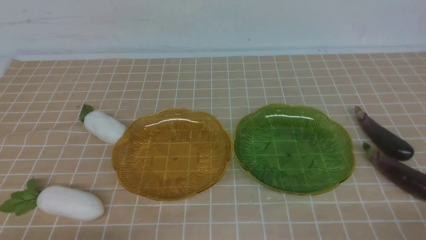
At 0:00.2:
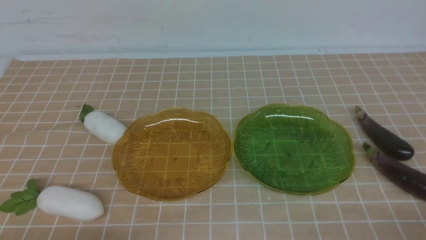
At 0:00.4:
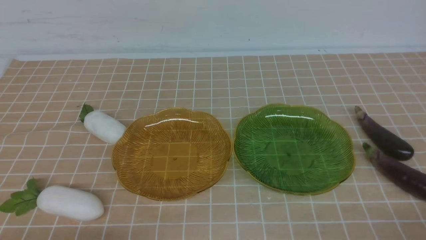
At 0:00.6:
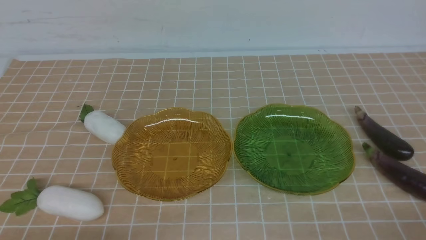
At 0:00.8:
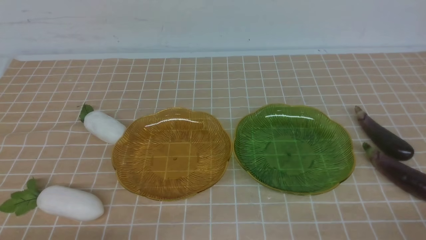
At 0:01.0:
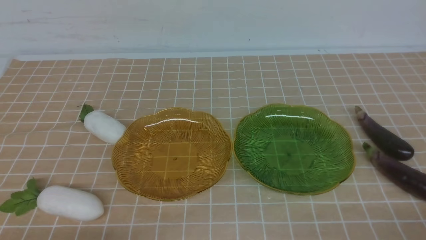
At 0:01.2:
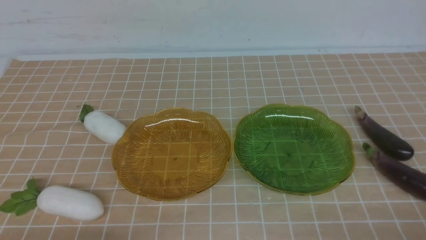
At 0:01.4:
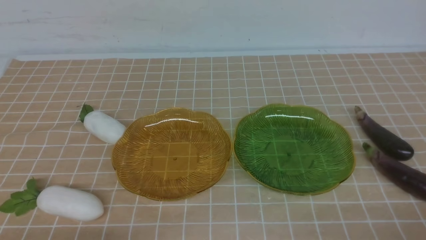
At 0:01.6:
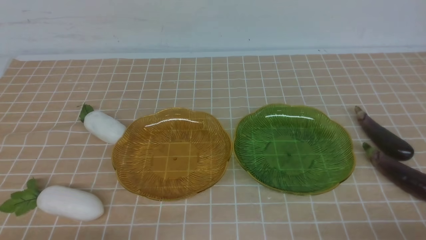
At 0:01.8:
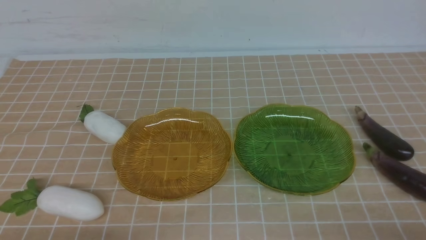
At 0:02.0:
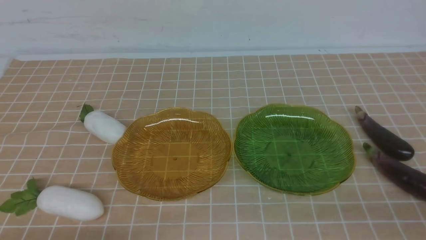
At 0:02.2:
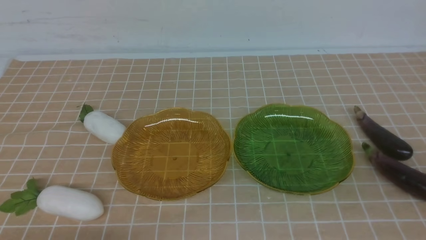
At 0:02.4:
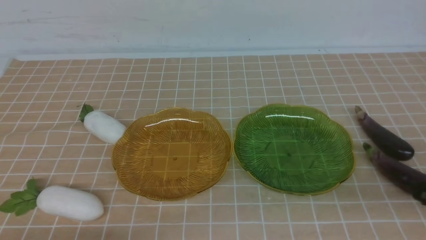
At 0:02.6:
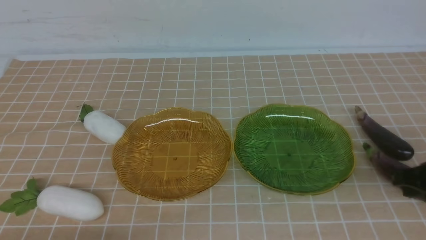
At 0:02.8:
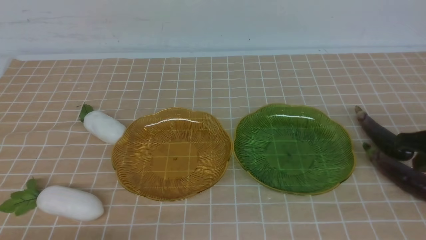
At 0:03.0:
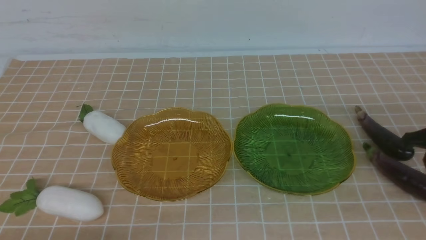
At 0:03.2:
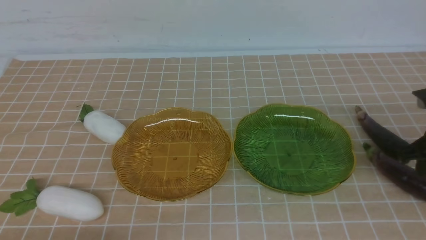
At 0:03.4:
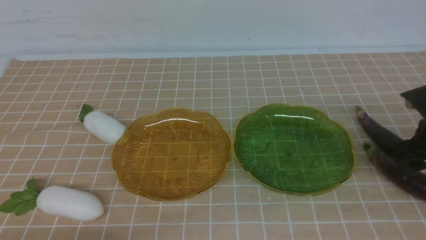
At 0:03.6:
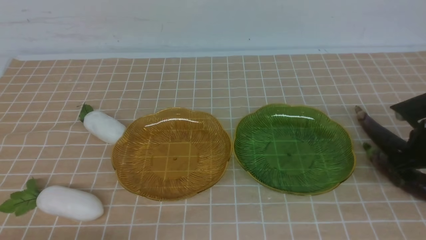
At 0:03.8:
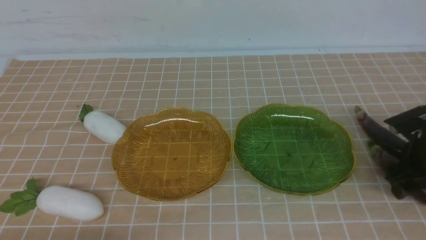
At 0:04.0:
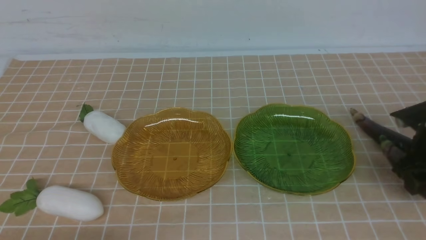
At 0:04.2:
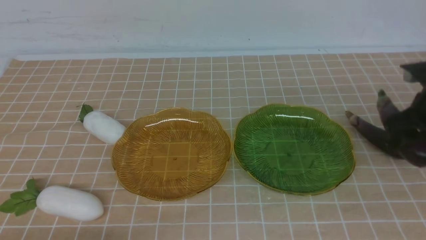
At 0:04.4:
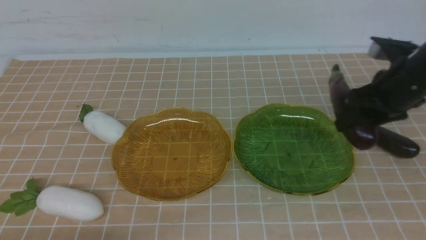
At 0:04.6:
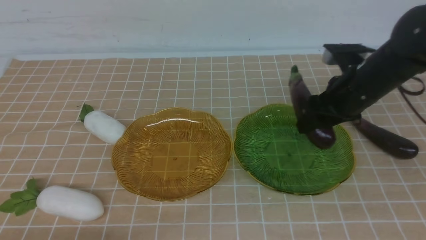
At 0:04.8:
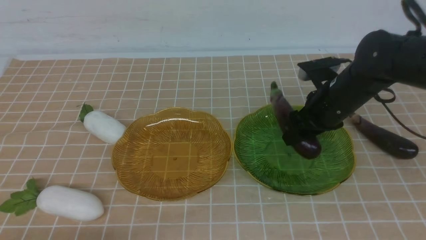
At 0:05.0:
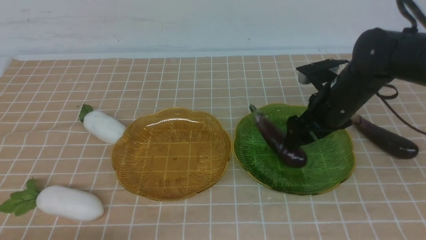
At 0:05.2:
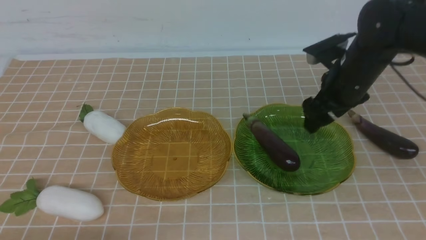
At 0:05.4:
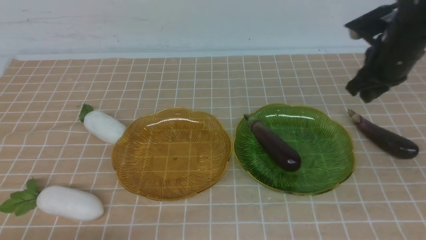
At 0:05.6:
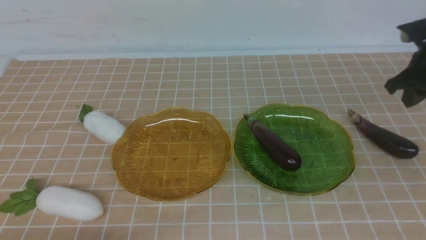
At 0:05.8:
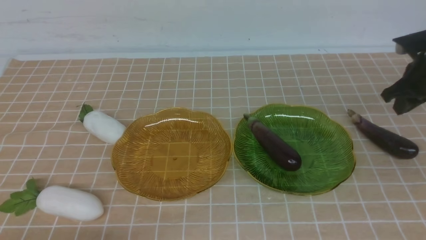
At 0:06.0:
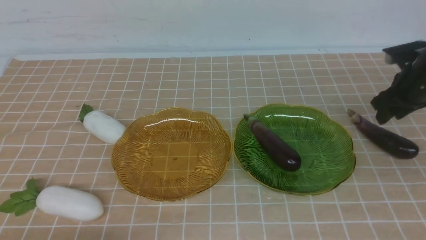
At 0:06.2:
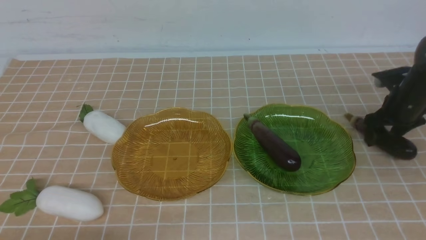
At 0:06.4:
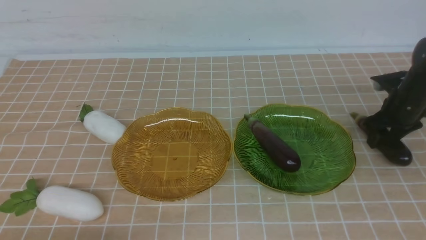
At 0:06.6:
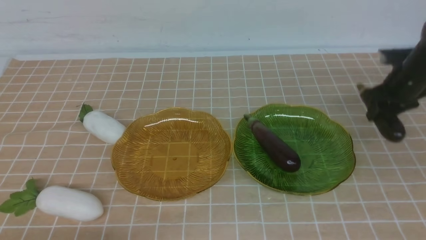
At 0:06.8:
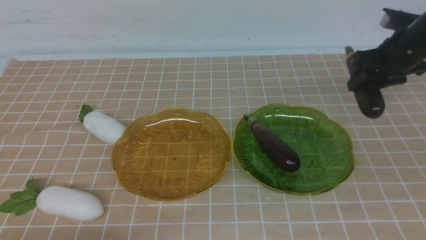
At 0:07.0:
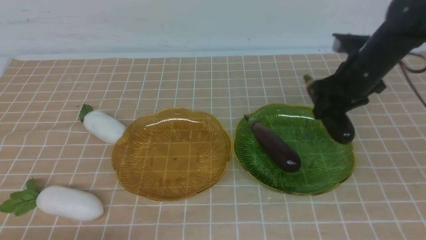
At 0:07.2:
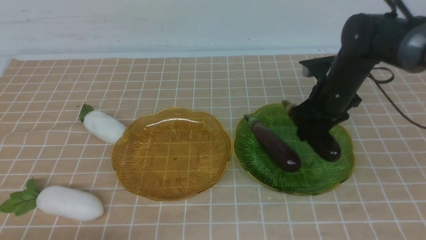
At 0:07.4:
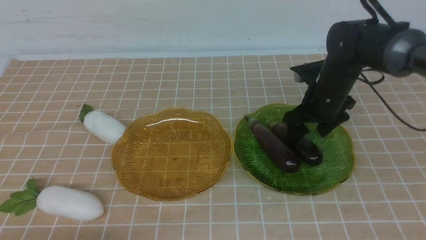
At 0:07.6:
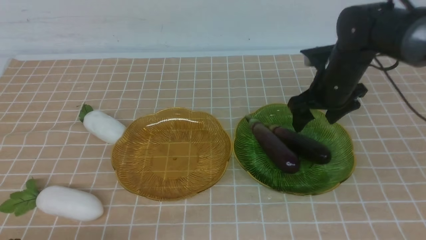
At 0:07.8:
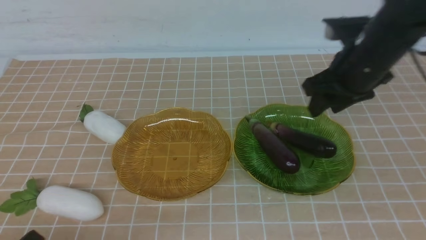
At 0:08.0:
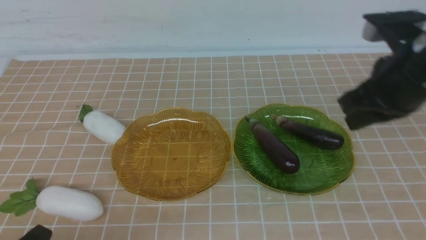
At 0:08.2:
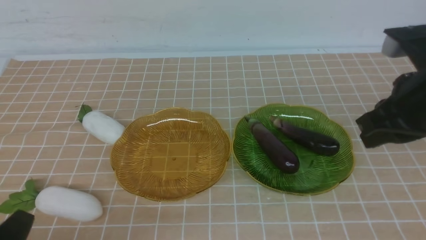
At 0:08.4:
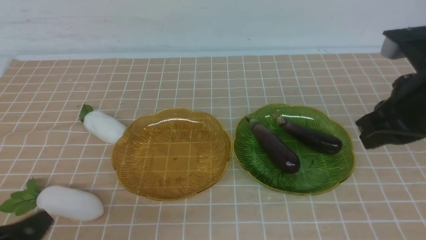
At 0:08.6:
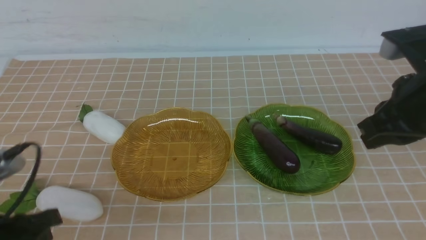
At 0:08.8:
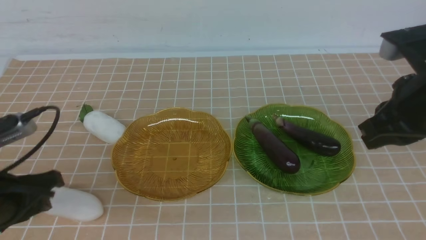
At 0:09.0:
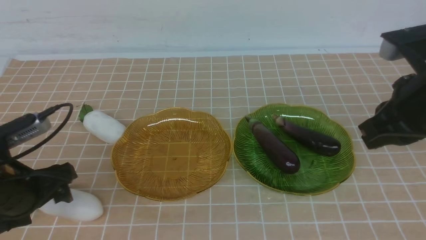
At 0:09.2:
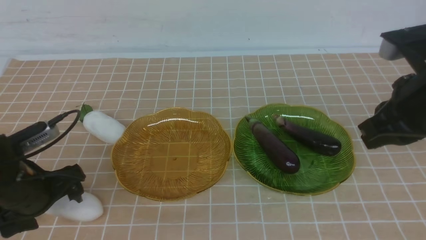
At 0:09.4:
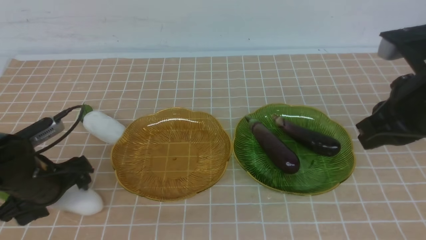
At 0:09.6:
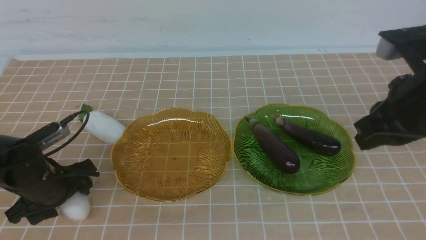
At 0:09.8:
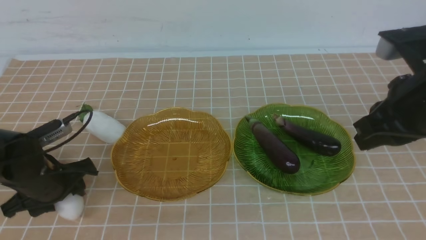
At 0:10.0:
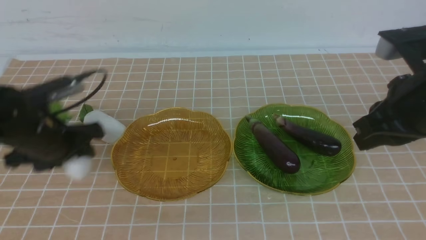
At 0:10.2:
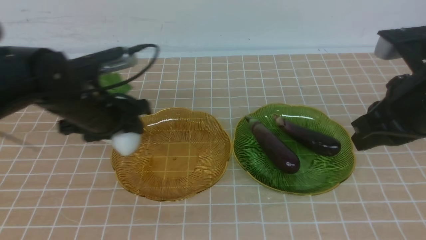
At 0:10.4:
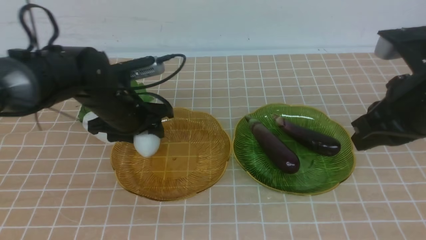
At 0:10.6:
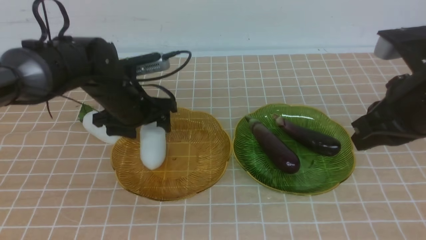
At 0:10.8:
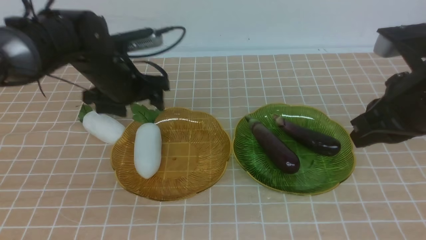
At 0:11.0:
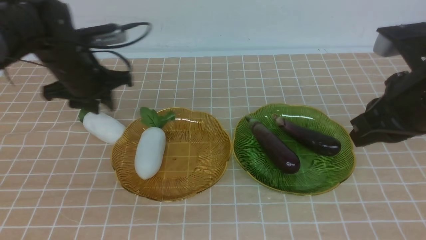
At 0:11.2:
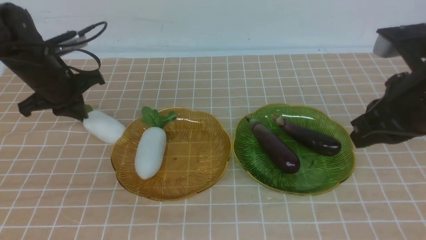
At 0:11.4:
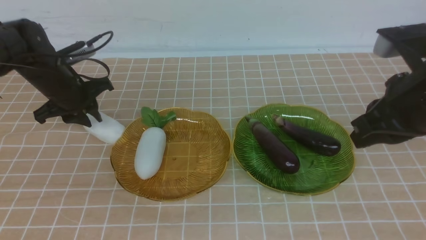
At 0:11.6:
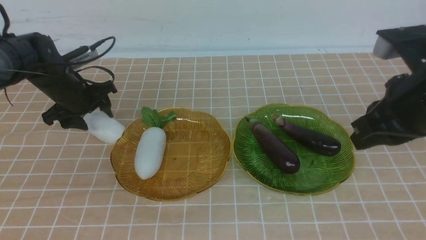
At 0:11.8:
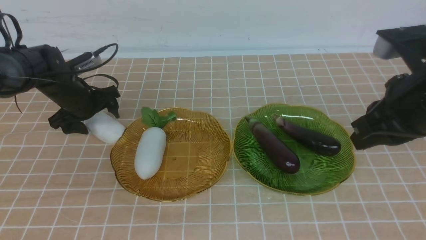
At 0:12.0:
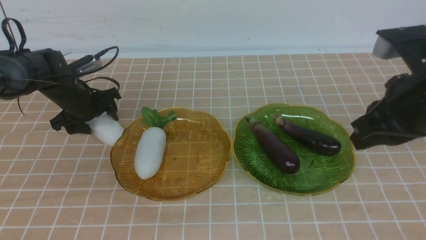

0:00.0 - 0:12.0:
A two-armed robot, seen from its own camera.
Step, 0:00.0 - 0:05.6: use the right arm to grab an eggplant and put it into the right plate.
Step, 0:05.8 - 0:07.6: use the right arm to grab an eggplant and put it into the right plate.
0:01.6 - 0:03.0: The right gripper shifts some 25 cm forward.
0:03.0 - 0:04.4: The right gripper travels forward and to the left by approximately 10 cm, reaches about 5 cm downward, then returns, and opens its fingers.
0:04.4 - 0:06.0: The right gripper shifts approximately 15 cm forward, to the right and downward, and closes, then reopens.
0:06.0 - 0:07.6: The right gripper shifts roughly 20 cm to the left and upward.
0:07.6 - 0:09.0: The left gripper moves forward, approximately 15 cm, and opens. The right gripper shifts some 15 cm backward and upward, and closes.
0:09.0 - 0:10.4: The left gripper goes about 15 cm forward and to the right.
0:10.4 - 0:12.0: The left gripper heads to the left and forward, covering roughly 15 cm, and closes, then reopens.

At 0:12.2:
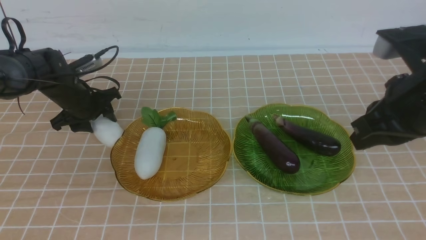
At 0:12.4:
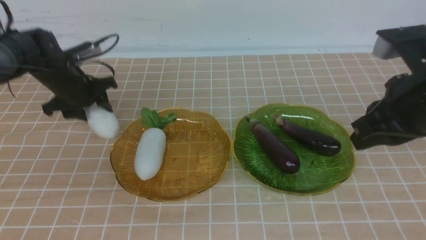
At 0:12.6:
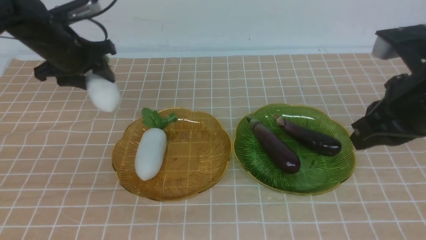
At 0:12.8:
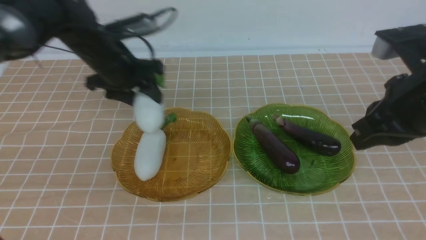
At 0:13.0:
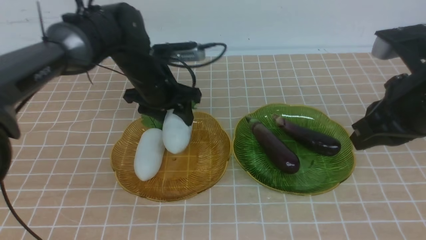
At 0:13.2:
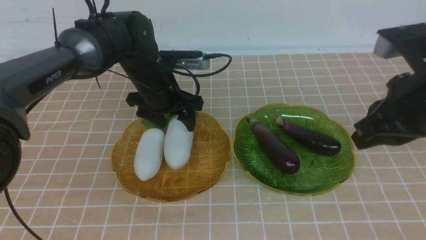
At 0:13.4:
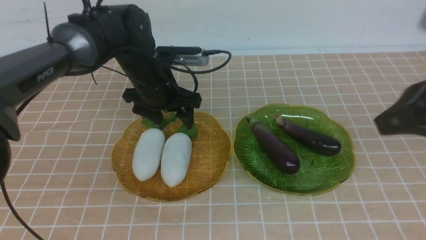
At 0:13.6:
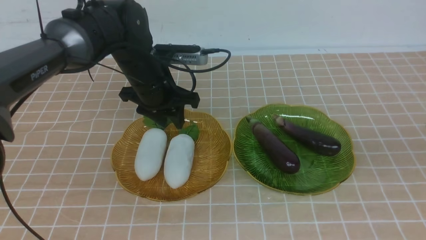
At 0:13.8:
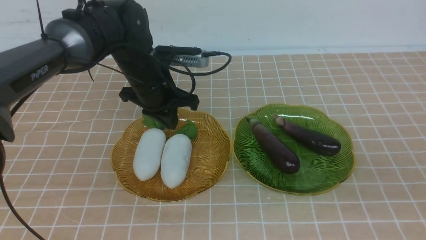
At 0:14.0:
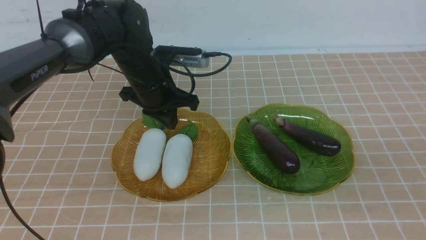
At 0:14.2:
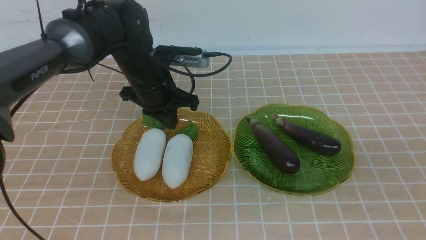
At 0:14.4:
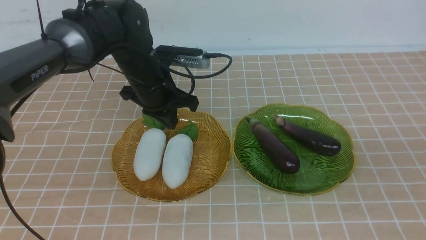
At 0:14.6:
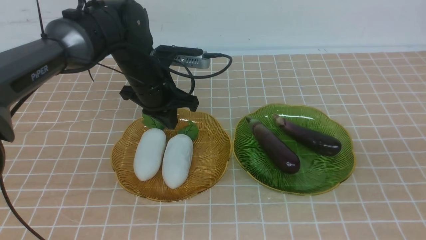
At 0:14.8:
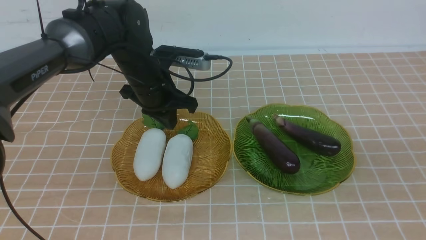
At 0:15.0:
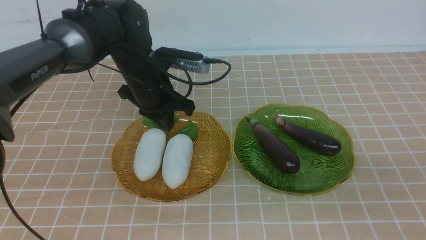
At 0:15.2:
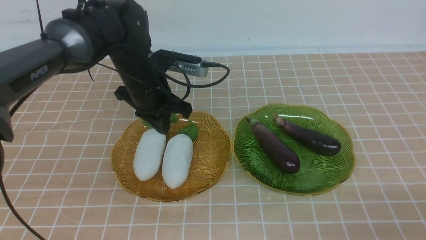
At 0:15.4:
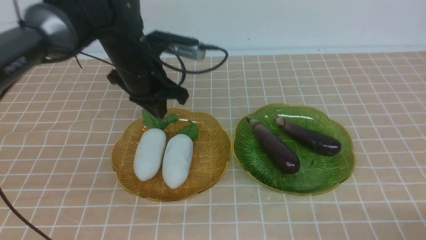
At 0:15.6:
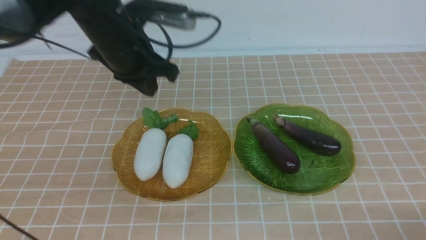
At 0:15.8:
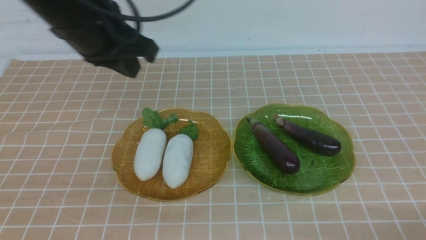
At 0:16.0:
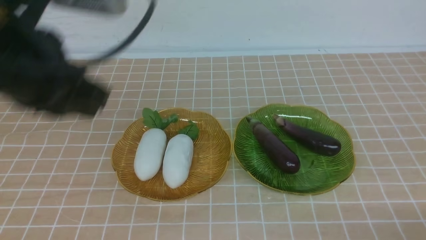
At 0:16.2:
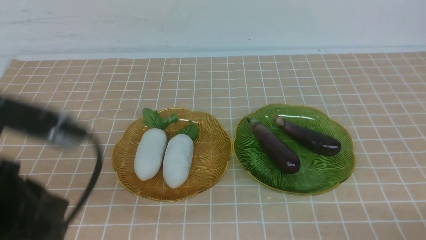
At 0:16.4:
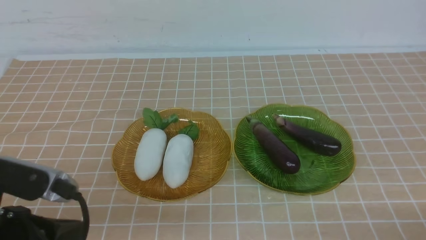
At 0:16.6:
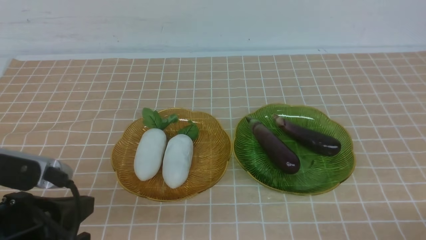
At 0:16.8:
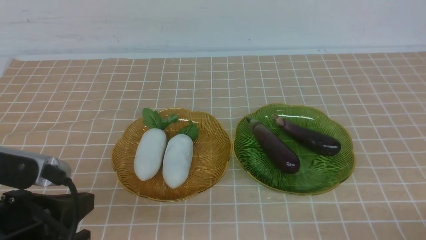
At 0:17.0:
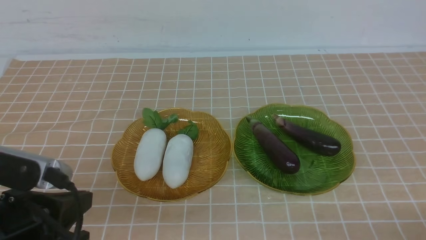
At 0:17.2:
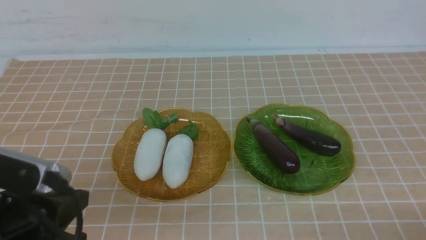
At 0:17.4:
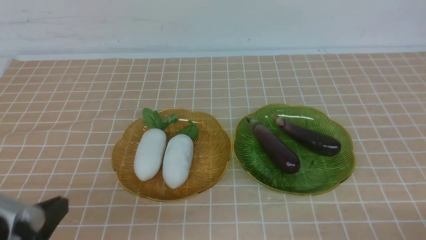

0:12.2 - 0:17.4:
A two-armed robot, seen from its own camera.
Step, 0:12.2 - 0:14.4: use the left arm to grab a radish and put it into the left plate.
0:12.2 - 0:14.0: The left gripper moves to the right, about 15 cm, and closes its fingers. Meanwhile the right gripper heads backward, covering about 15 cm.
0:14.0 - 0:15.6: The left gripper moves backward, roughly 30 cm; the right gripper goes about 15 cm downward.
0:15.6 - 0:17.4: The left gripper moves downward, backward and to the left, about 15 cm.
